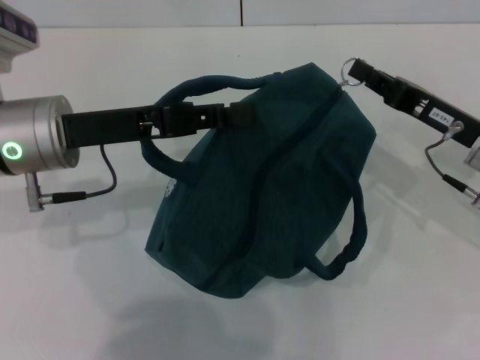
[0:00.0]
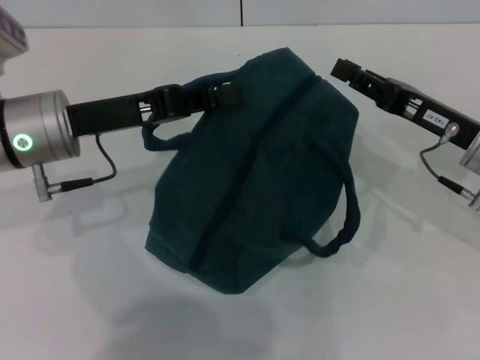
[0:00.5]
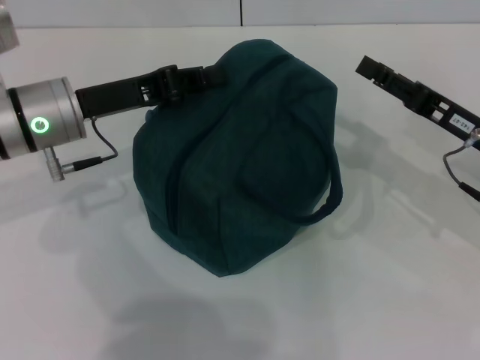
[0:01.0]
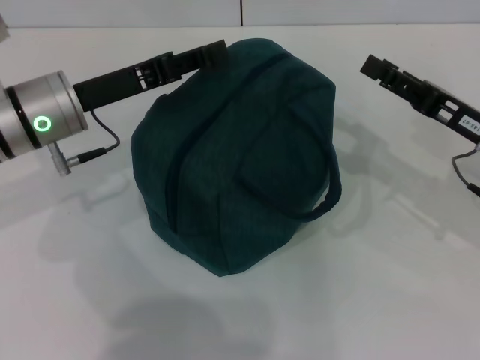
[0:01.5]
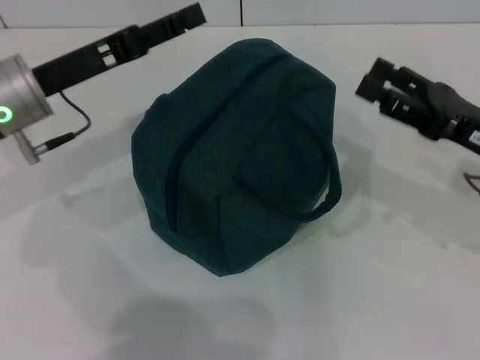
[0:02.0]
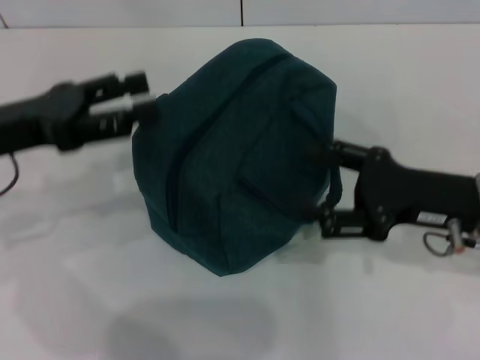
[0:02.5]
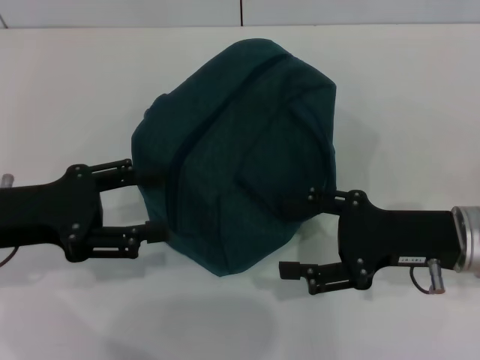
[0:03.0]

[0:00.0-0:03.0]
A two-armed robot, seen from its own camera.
Step, 0:00.5 to 0:01.5: Hold the lunch bag with your left hand.
0:00.0 to 0:01.5: The right gripper opens up.
0:01.5 to 0:03.0: The right gripper ends up roughly 5 cm from where it was. Meanwhile the left gripper is displaced backward and to the left by approximately 10 cm, and opens up.
